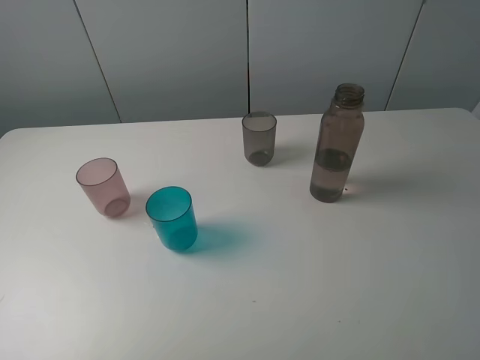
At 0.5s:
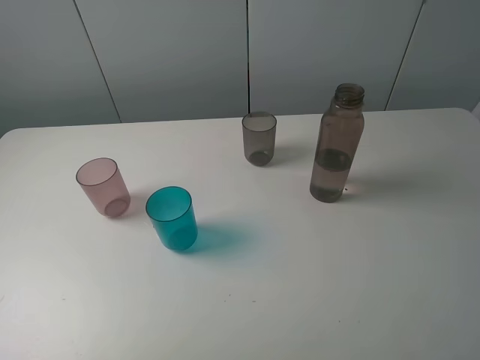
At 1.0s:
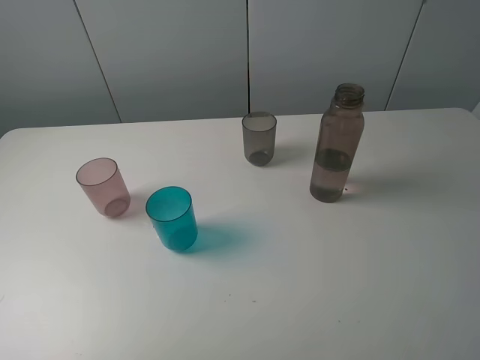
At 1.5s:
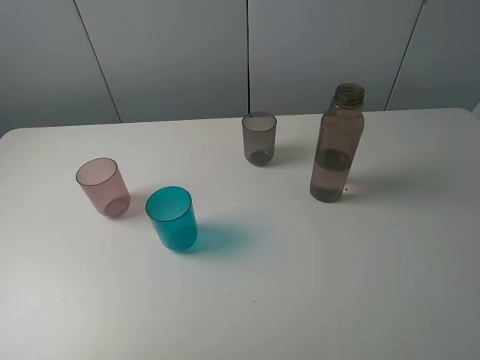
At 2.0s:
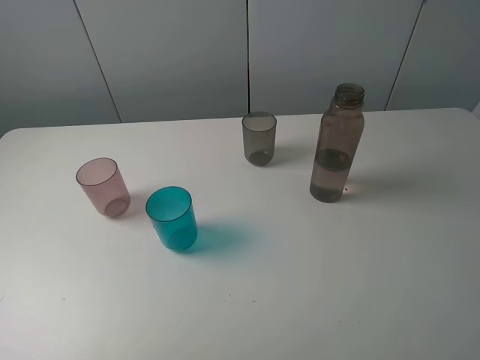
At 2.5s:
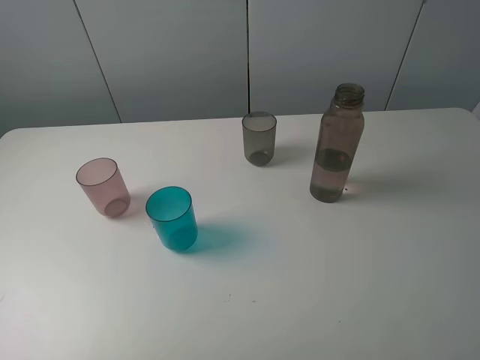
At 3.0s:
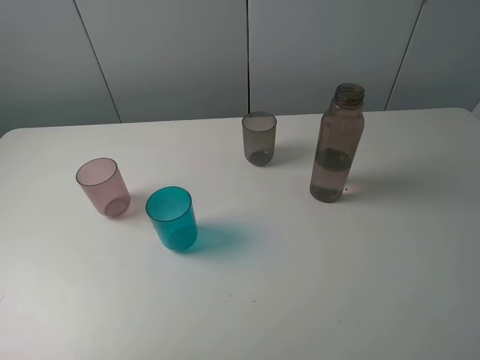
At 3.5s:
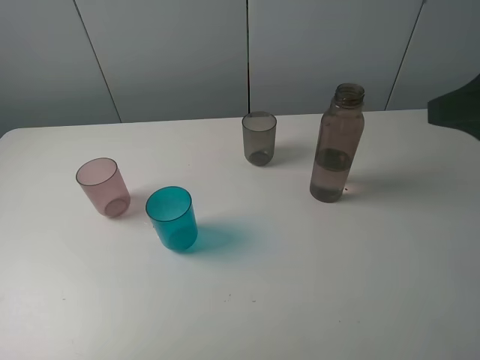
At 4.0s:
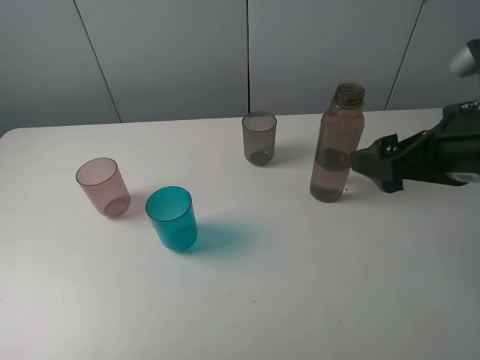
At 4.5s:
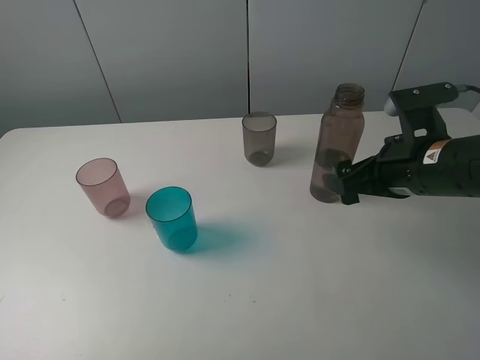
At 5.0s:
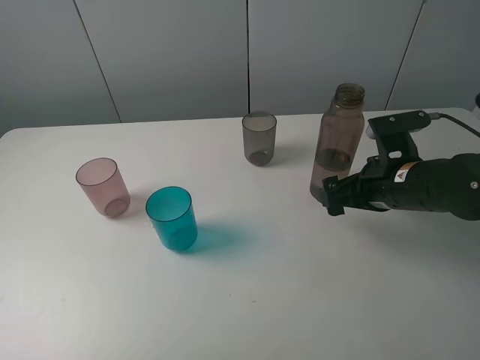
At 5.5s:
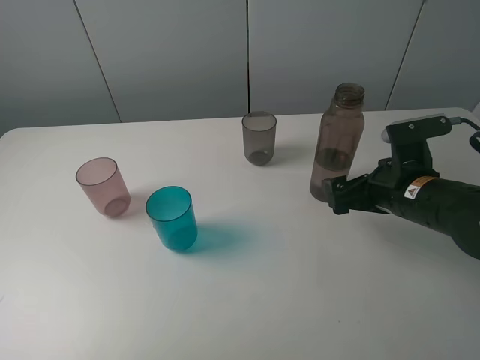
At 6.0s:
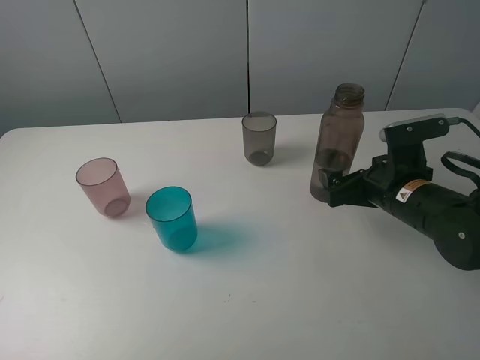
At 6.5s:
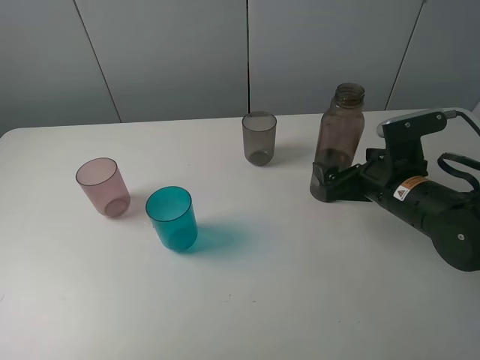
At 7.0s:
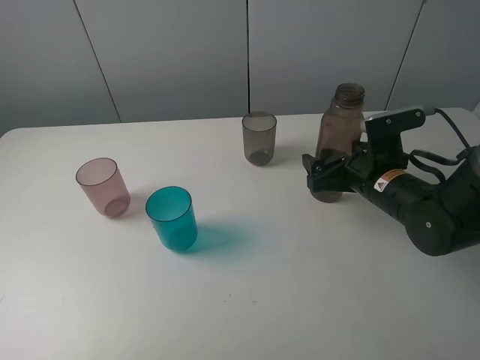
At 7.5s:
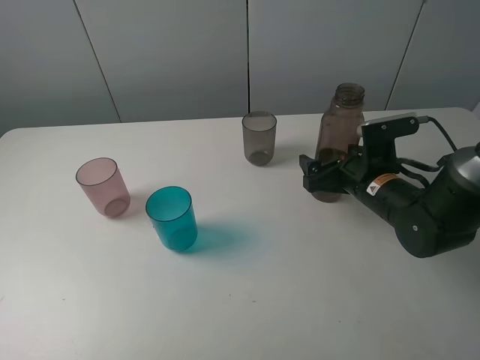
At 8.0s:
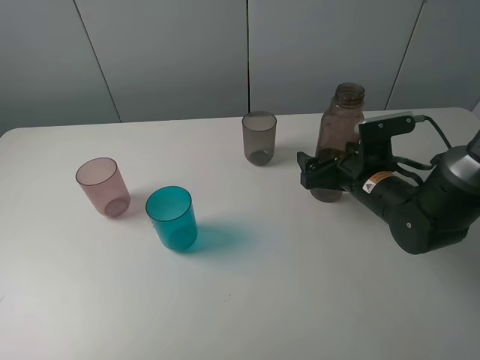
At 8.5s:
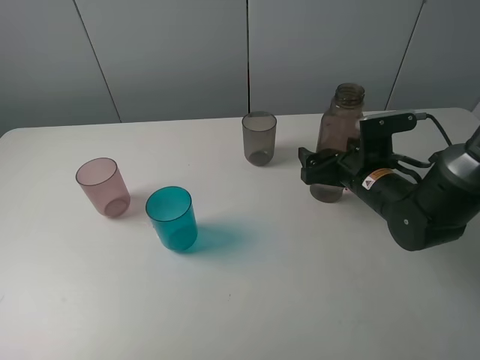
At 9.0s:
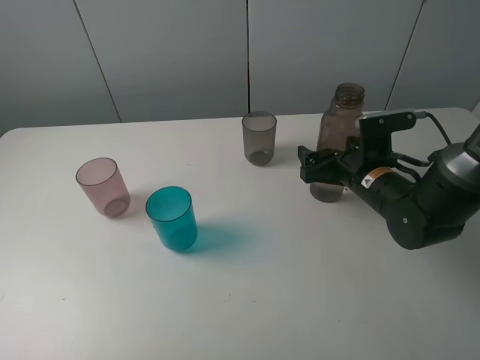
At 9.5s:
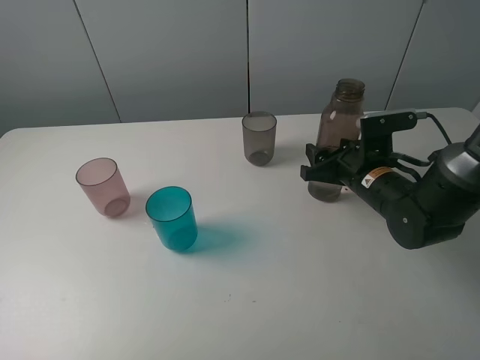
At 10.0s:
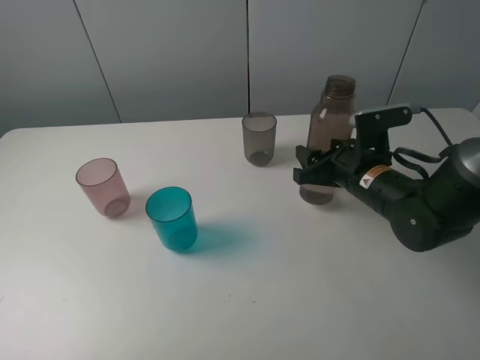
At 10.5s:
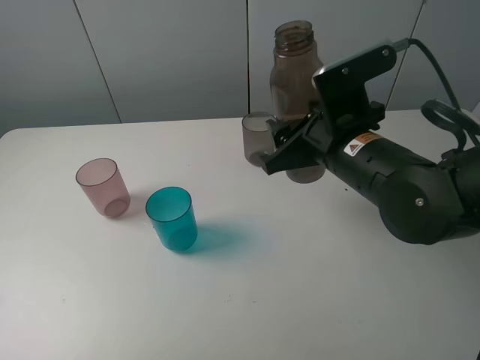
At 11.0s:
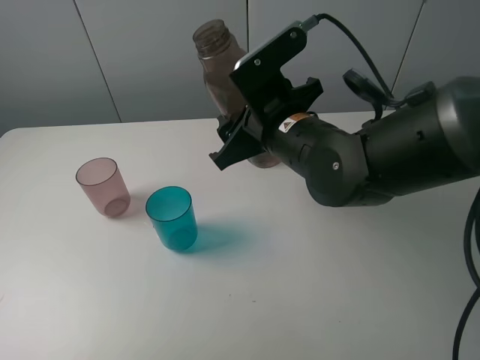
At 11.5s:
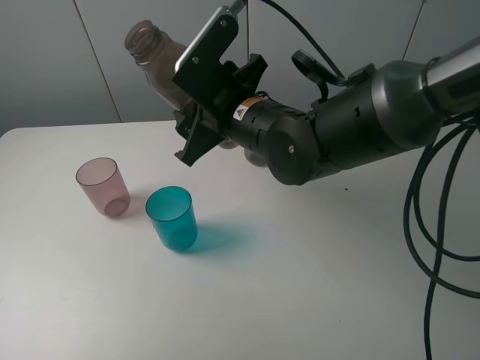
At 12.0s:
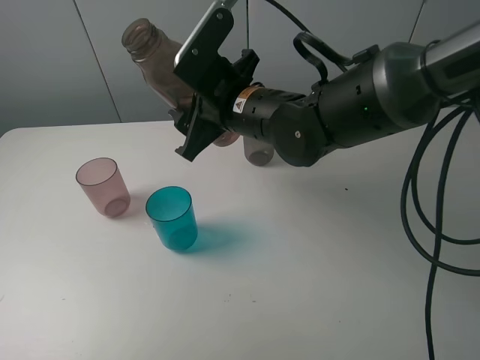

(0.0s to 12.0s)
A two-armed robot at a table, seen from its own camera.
Task of the whole recording: pick up the bottle filled with water and pour water into the middle cup of the three cups.
Step, 0.0s - 9.0s: Grasp the brown bottle with the right gripper.
0.0s - 2.0s: Both grippers stay about where they are.
2.0s - 4.0s: The right gripper goes about 20 cm forward and to the left.
4.0s - 6.0s: The right gripper heads downward and forward, covering some 15 cm.
6.0s - 8.0s: The right gripper changes place by approximately 5 cm.
8.0s - 10.0s: The right gripper closes its fingers.
10.0s - 12.0s: The right gripper travels to the left and upward by approximately 20 cm.

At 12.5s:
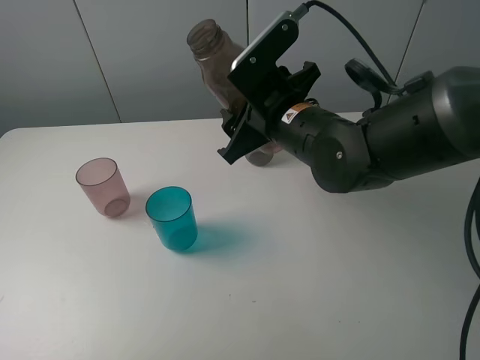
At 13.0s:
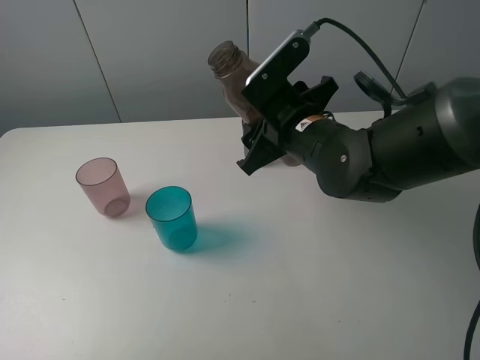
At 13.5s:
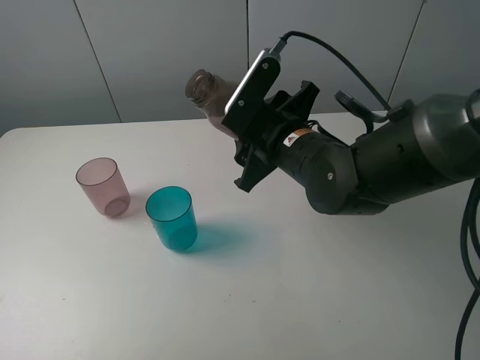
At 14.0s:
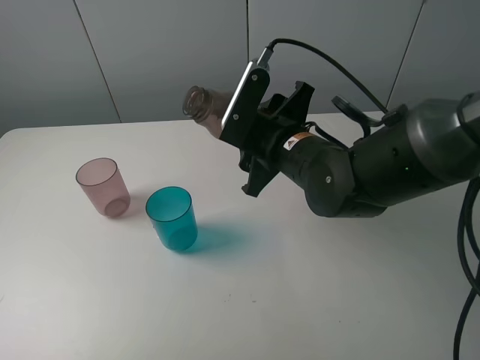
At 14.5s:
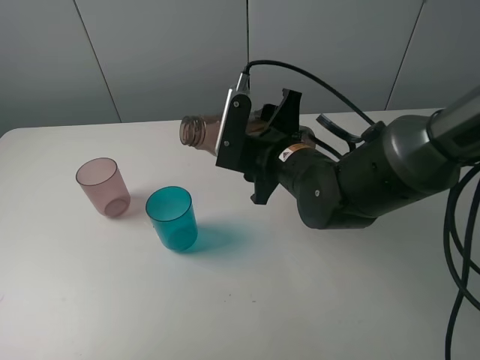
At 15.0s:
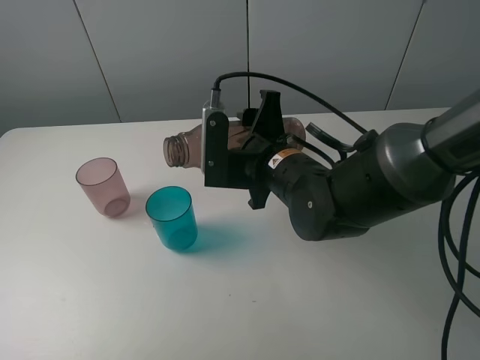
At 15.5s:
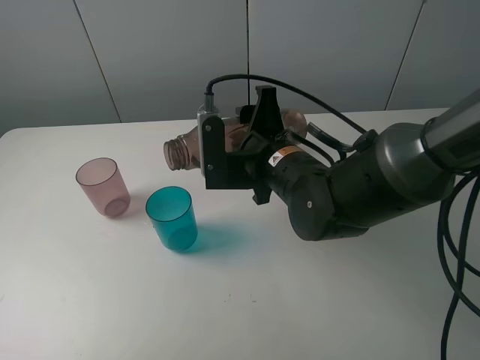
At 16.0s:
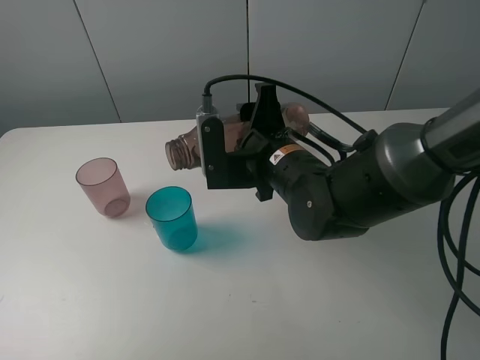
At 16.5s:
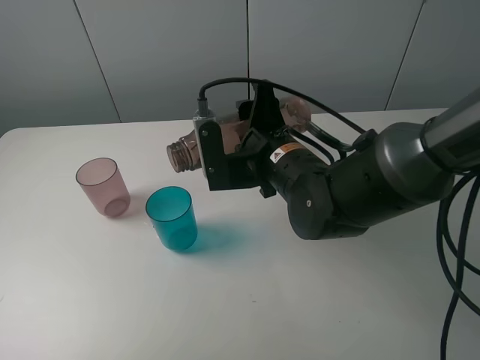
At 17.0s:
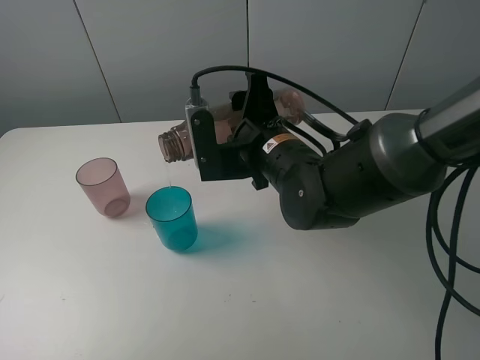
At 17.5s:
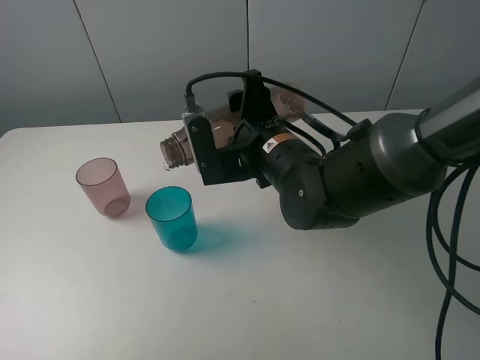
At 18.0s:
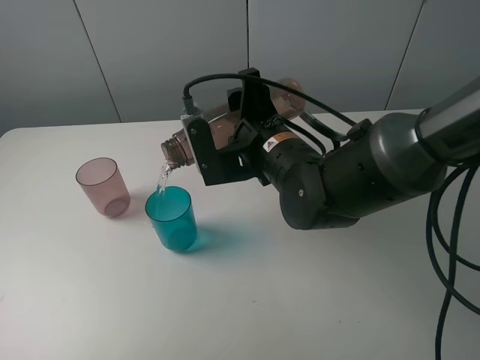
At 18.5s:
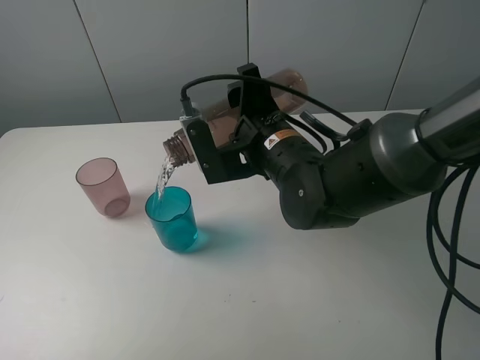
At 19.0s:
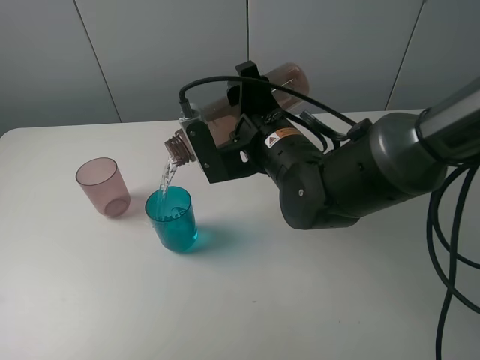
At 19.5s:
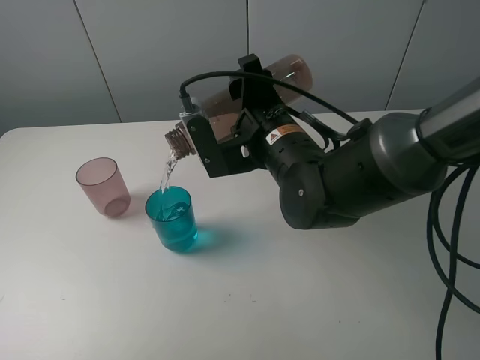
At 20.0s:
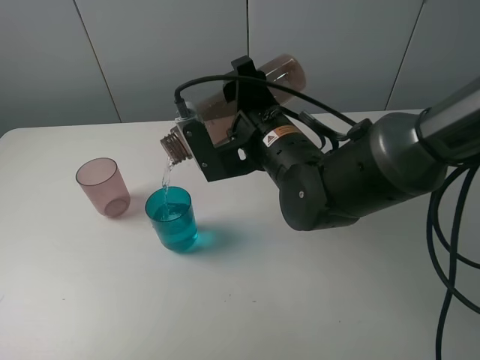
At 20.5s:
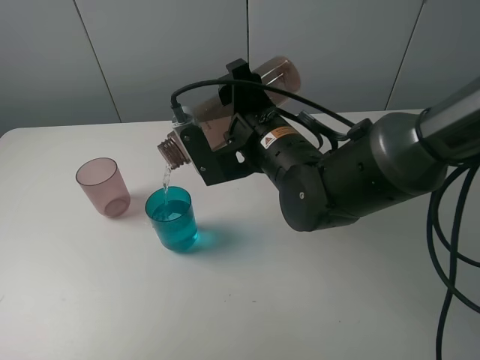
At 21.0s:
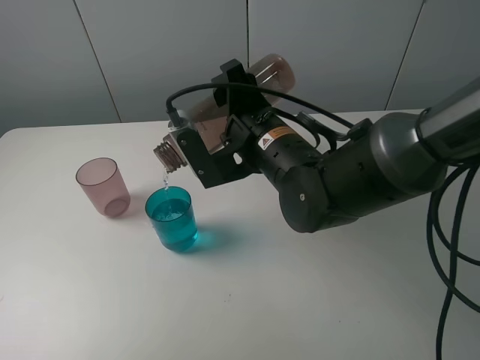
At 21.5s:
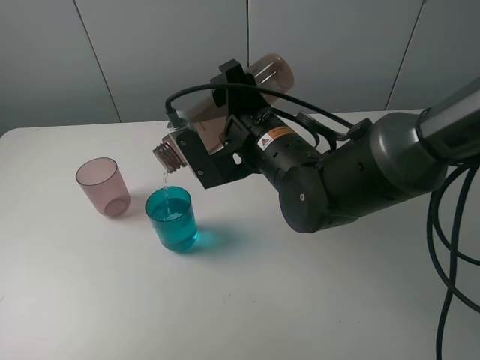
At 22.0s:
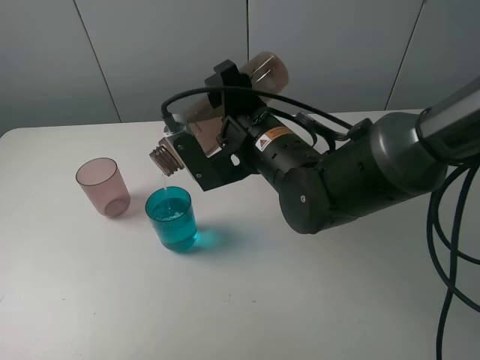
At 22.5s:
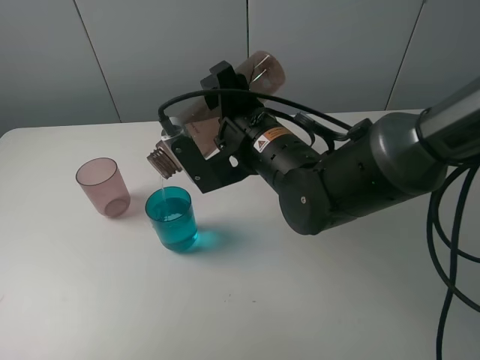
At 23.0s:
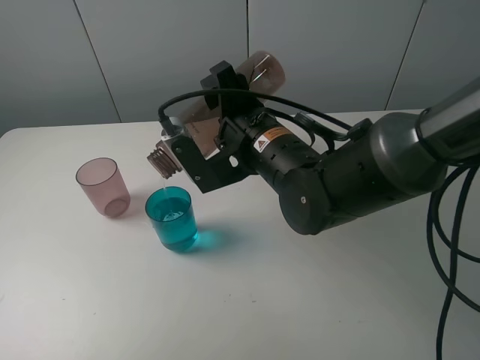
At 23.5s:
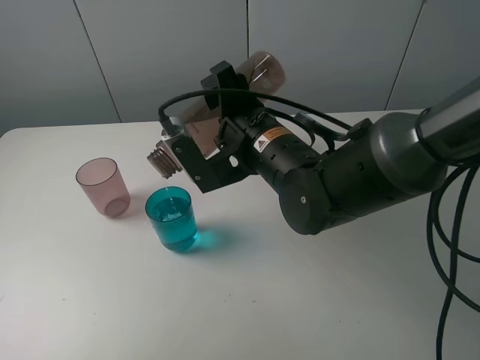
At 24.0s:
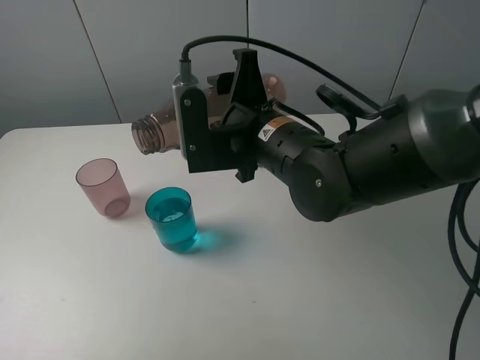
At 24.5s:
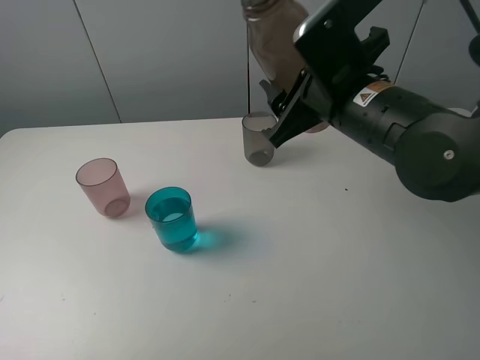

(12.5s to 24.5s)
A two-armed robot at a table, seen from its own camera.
Task of the whole recording: pick up the bottle filled with water and pour water into the middle cup of the three cups.
Step, 12.5s - 16.0s: Pour water from transparent bottle to blue cup with the right gripper.
16.5s - 20.5s: The grippers move only a little.
20.5s - 22.5s: The grippers make only small movements.
22.5s - 24.5s: The right gripper shifts some 10 cm to the right and upward.

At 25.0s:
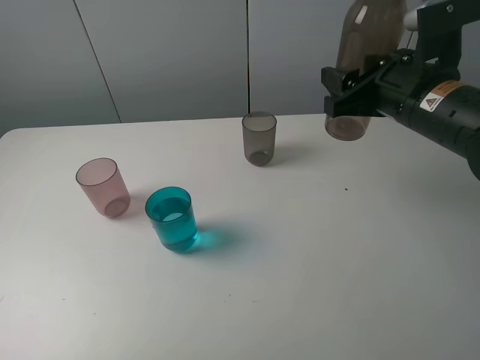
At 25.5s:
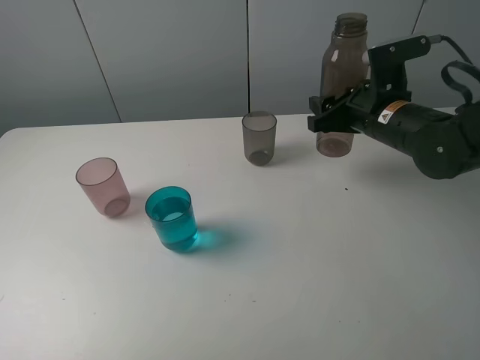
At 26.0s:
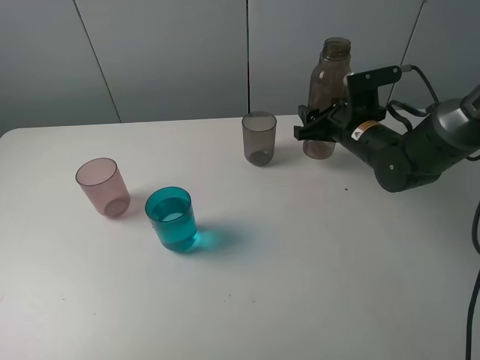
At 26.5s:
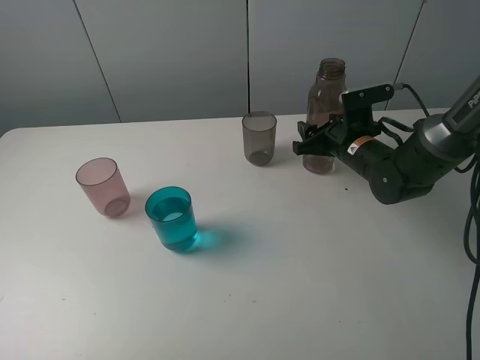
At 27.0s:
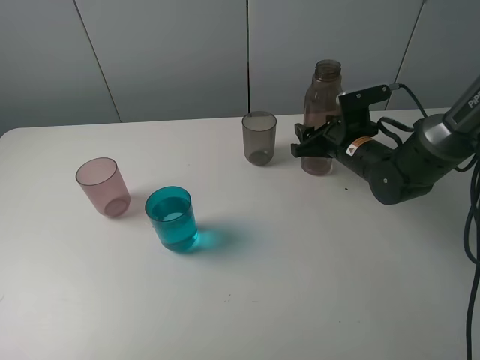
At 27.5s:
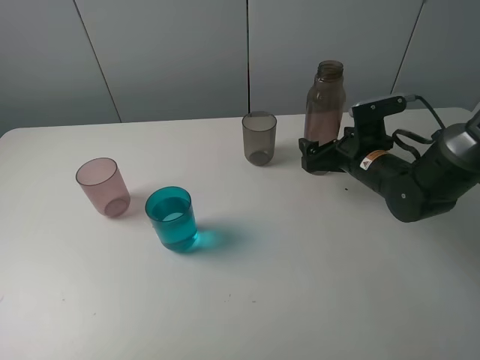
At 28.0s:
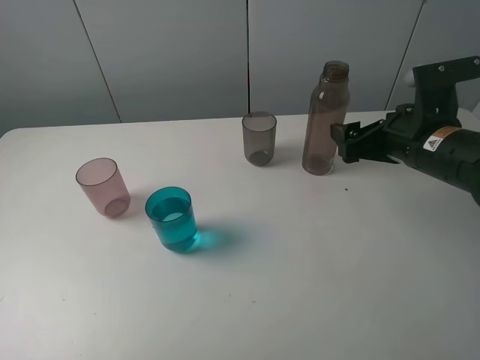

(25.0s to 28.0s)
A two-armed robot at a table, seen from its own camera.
Task of the whole recording: pick up the bottle filled with water and pour water into the middle cup of the three cups.
Step, 25.0s - 27.0s: Place the brown bottle with the right gripper.
25.0s - 26.5s: The right gripper is displaced downward and forward by approximately 15 cm.
26.5s - 28.0s: The right gripper moves backward and upward, approximately 15 cm, and opens its fingers.
